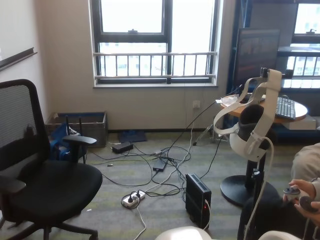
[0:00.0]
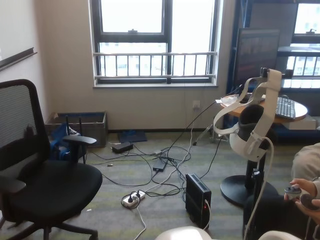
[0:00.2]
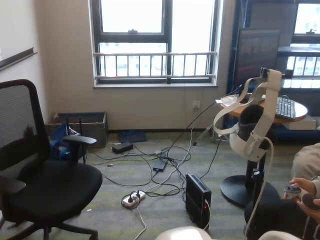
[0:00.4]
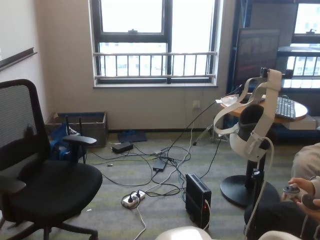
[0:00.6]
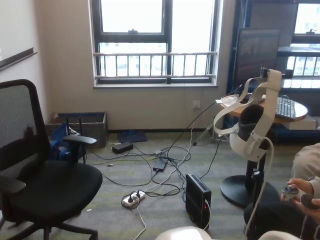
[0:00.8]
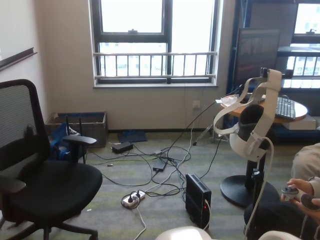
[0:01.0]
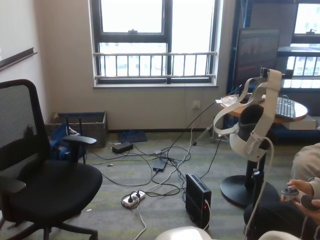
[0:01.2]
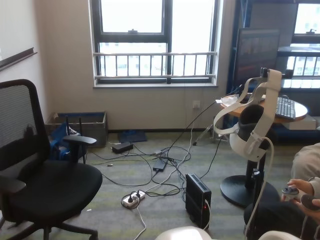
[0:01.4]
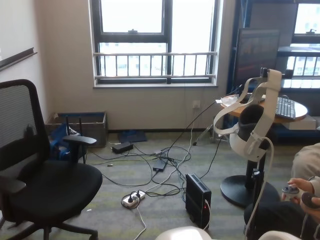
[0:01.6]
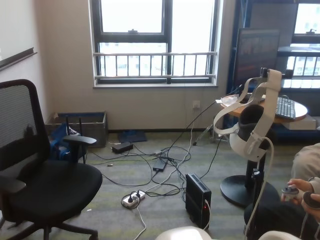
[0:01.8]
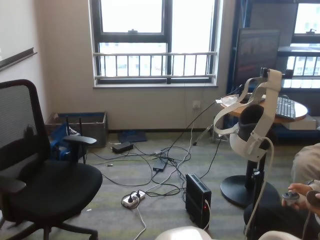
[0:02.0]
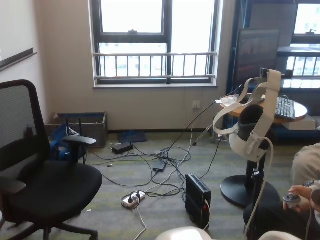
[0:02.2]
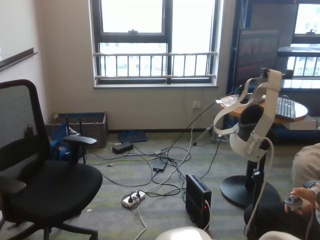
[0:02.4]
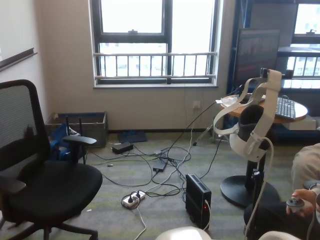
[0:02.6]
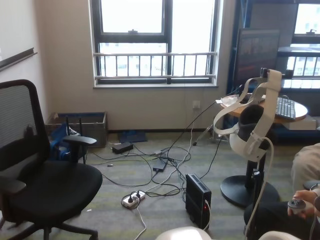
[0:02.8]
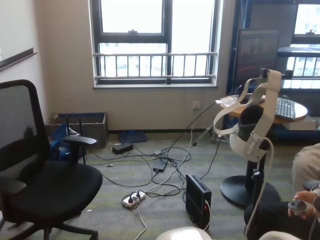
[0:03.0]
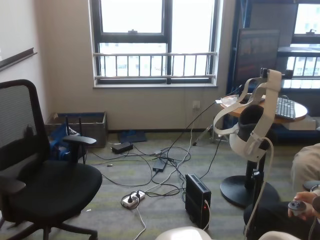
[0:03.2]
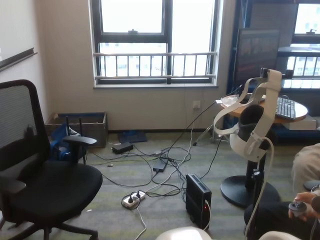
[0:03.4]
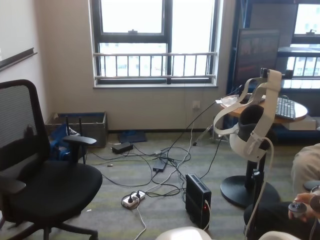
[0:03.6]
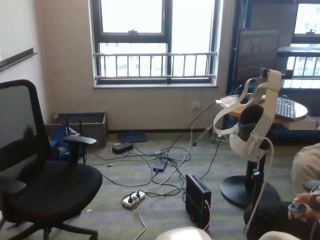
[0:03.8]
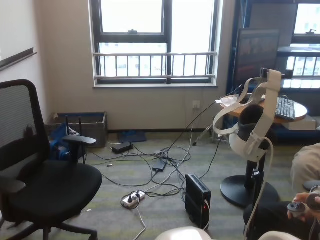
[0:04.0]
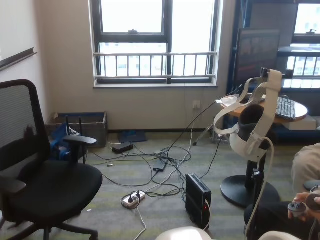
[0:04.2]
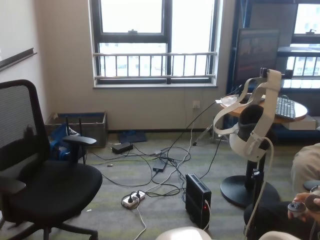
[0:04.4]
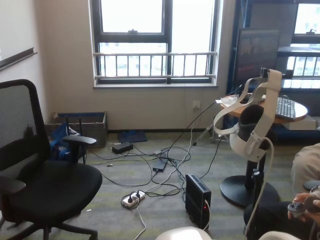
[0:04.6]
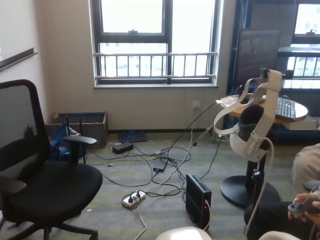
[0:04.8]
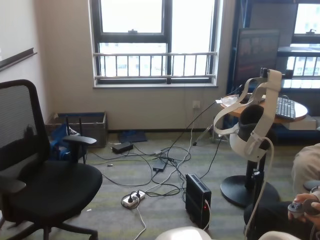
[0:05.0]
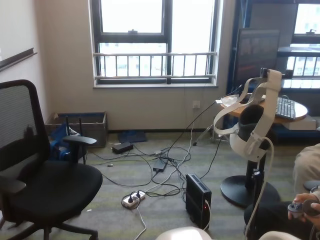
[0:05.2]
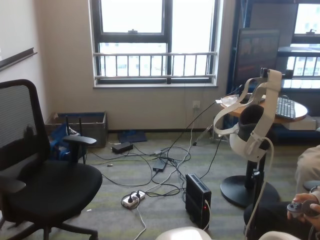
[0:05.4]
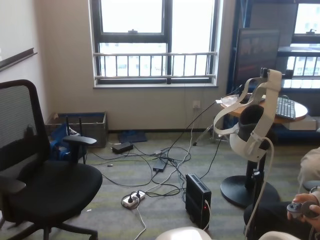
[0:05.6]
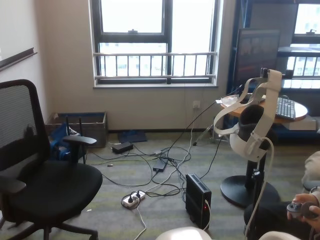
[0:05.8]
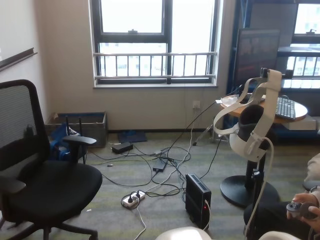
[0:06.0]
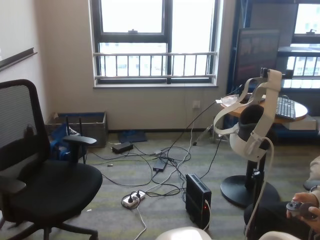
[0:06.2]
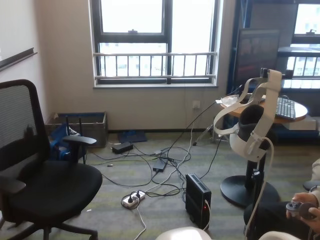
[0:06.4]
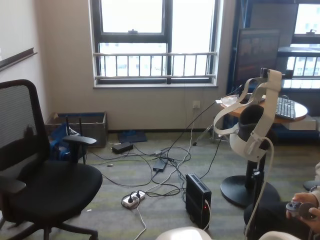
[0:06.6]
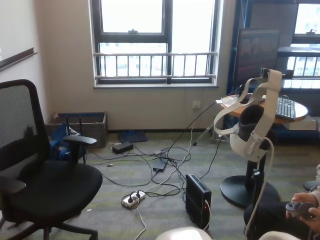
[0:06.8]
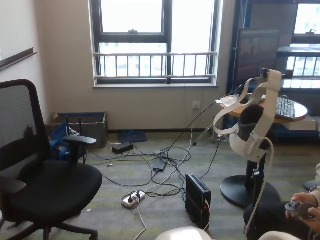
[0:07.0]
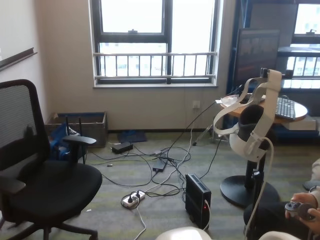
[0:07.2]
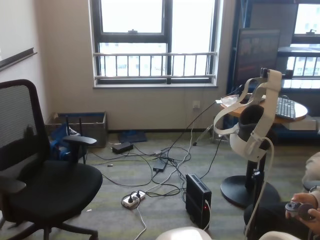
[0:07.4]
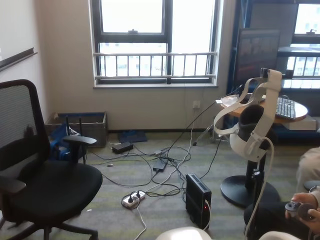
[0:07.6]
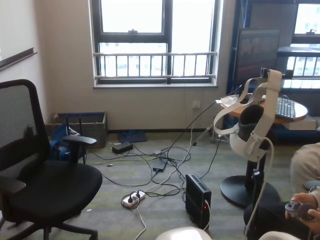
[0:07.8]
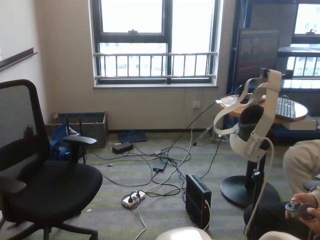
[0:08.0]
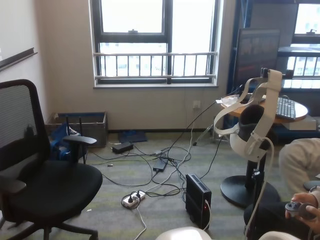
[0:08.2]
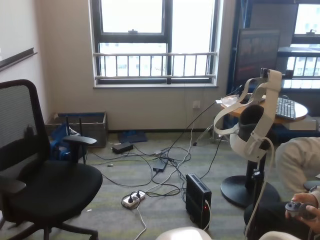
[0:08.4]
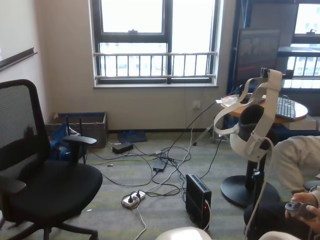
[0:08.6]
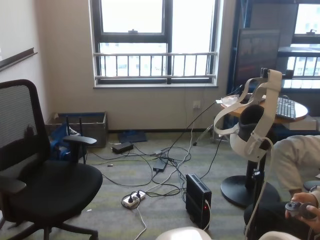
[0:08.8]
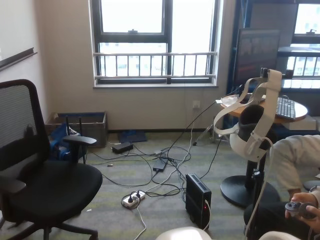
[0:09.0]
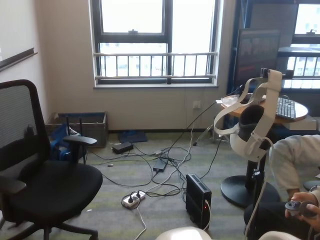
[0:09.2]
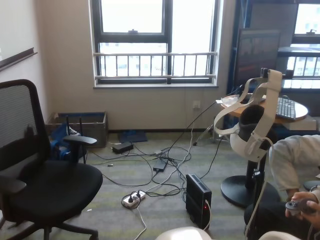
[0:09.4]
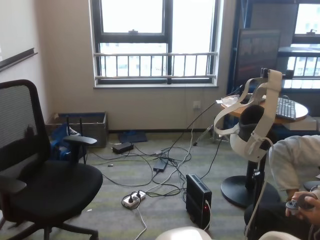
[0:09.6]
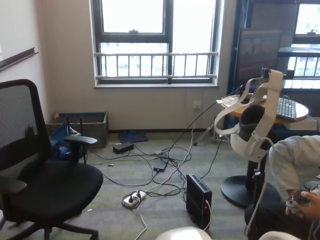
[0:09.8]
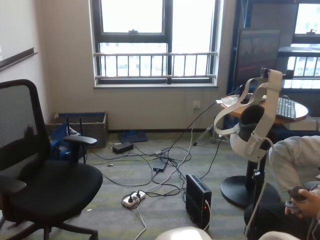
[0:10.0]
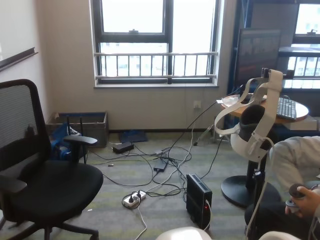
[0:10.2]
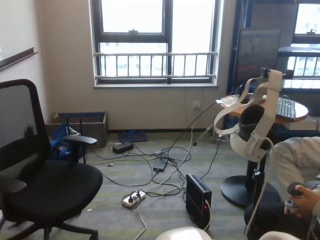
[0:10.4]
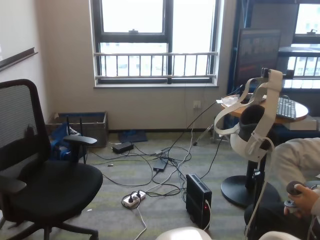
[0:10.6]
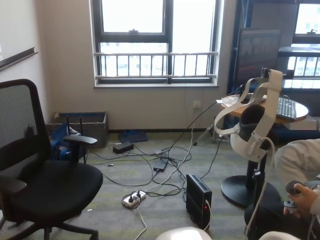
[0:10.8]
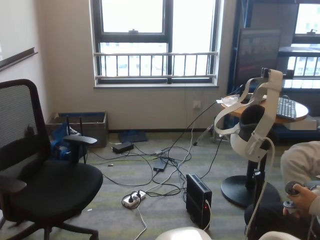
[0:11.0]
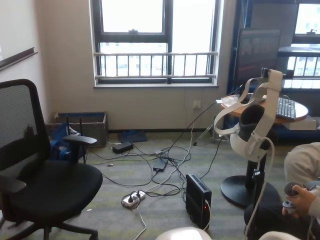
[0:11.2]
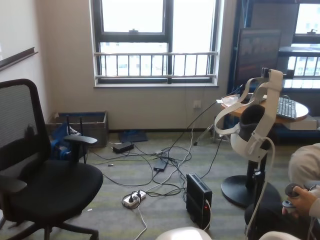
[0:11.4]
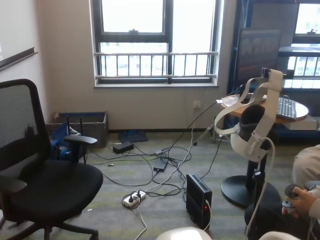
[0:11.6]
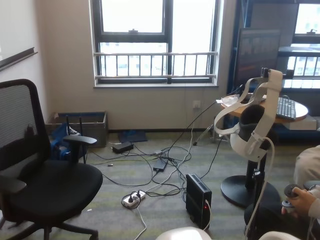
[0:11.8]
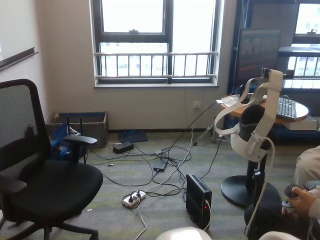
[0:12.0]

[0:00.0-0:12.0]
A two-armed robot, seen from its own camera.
Task of the whole recording: stack building blocks on the table.
Step, 0:00.0 to 0:08.8: Grasp the pink building block with left gripper.

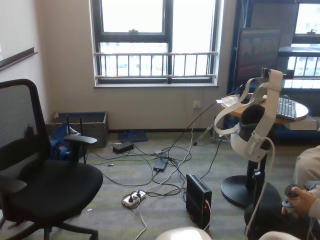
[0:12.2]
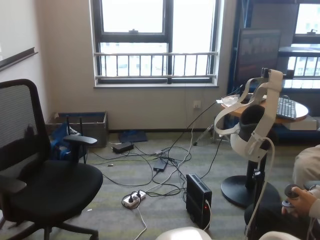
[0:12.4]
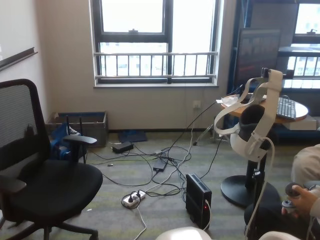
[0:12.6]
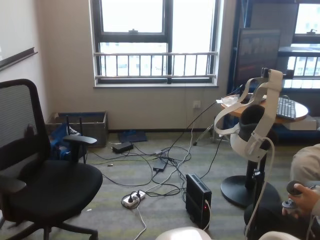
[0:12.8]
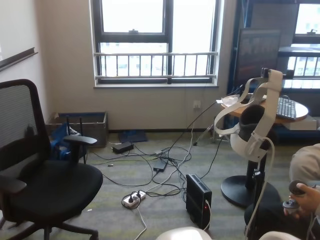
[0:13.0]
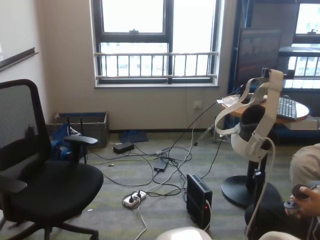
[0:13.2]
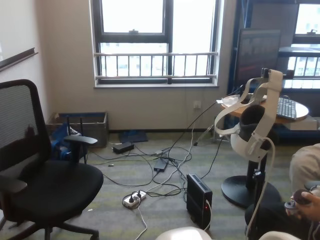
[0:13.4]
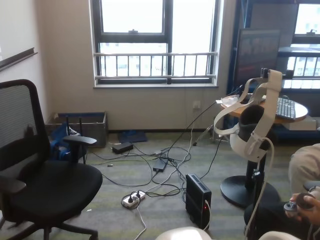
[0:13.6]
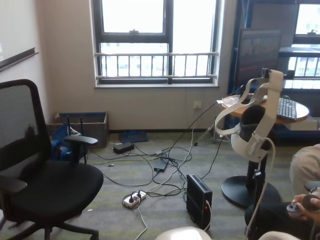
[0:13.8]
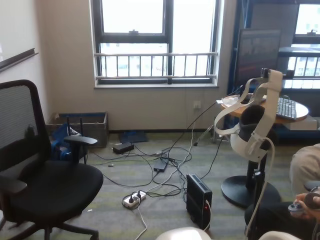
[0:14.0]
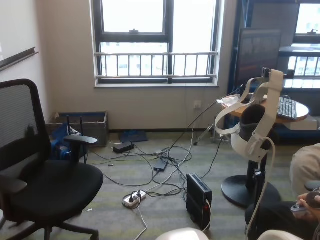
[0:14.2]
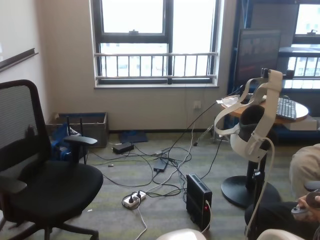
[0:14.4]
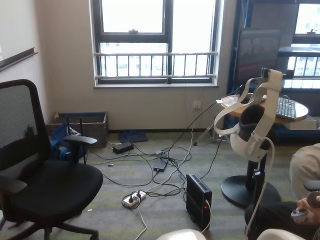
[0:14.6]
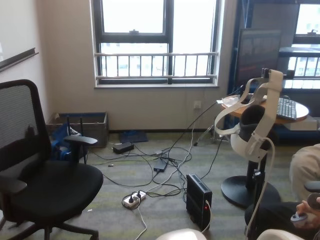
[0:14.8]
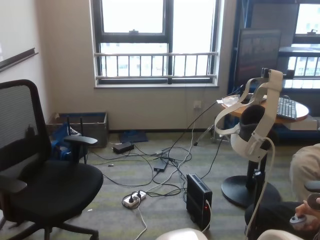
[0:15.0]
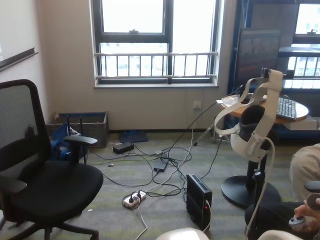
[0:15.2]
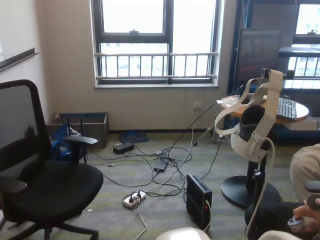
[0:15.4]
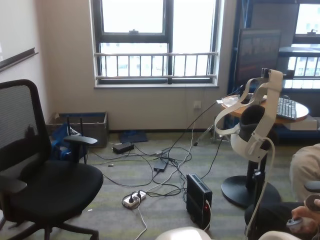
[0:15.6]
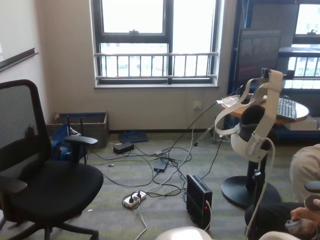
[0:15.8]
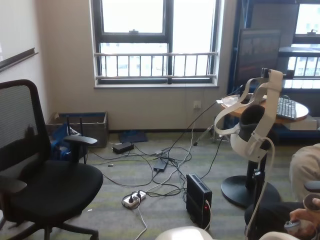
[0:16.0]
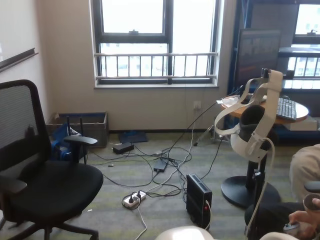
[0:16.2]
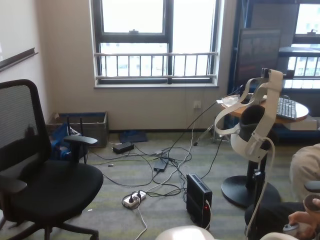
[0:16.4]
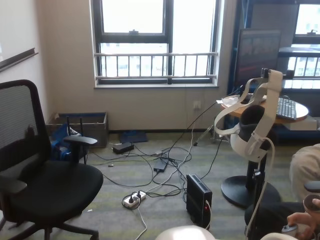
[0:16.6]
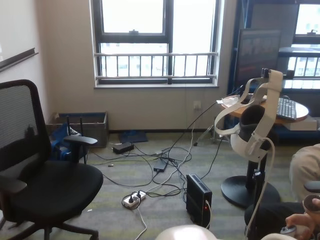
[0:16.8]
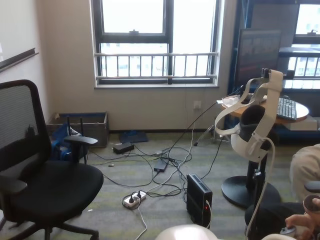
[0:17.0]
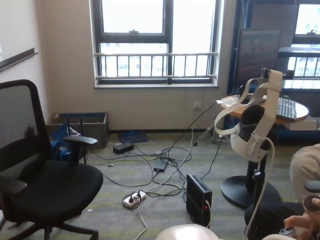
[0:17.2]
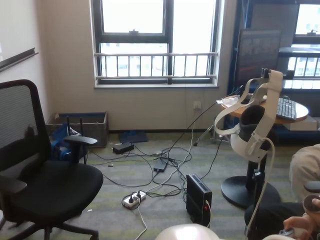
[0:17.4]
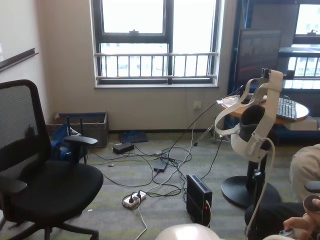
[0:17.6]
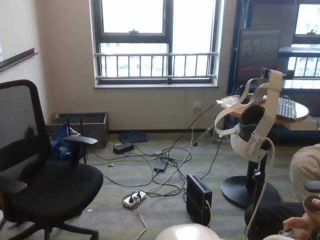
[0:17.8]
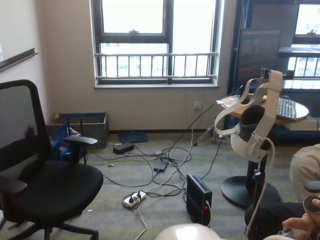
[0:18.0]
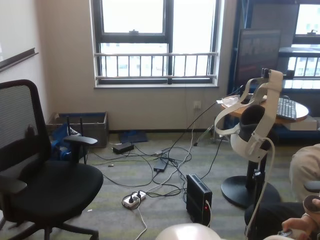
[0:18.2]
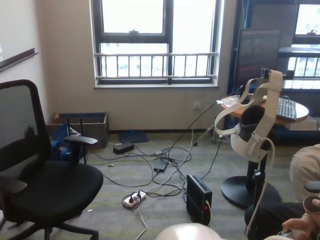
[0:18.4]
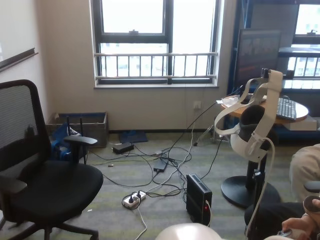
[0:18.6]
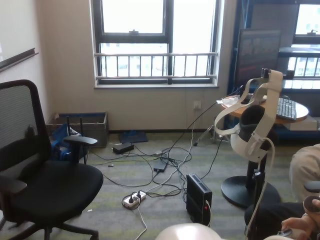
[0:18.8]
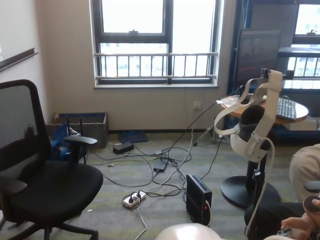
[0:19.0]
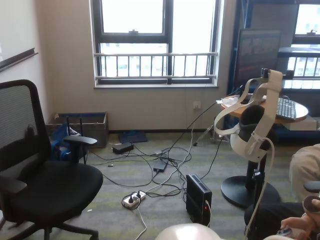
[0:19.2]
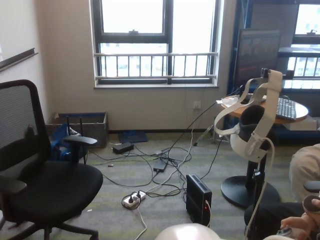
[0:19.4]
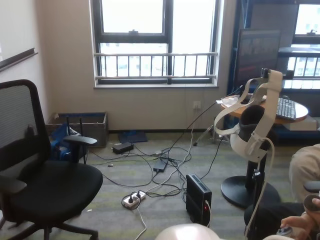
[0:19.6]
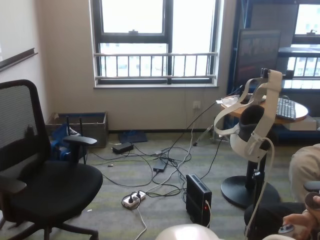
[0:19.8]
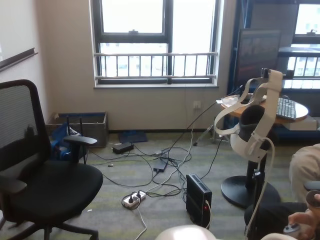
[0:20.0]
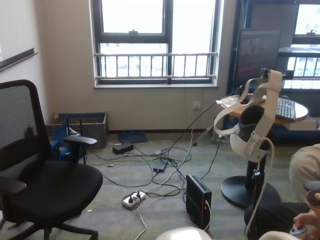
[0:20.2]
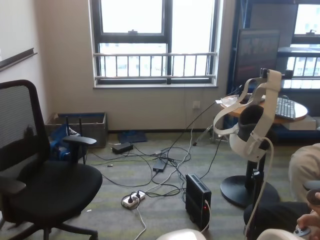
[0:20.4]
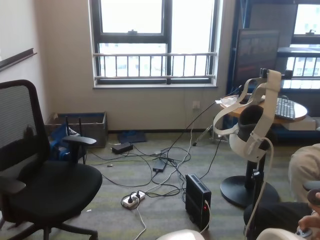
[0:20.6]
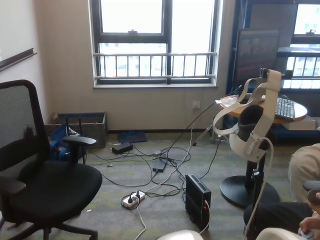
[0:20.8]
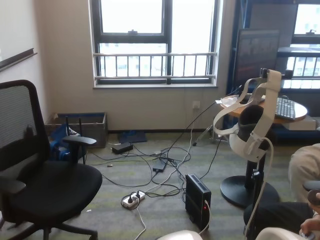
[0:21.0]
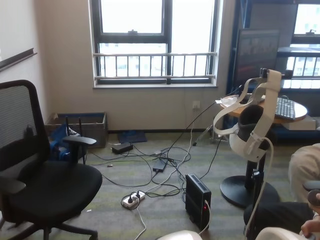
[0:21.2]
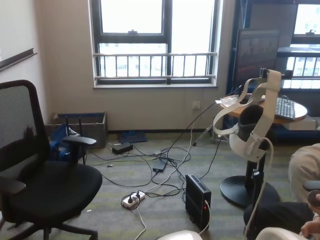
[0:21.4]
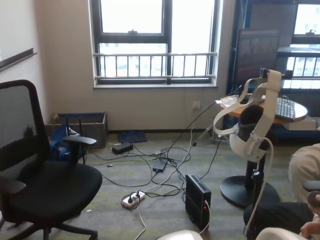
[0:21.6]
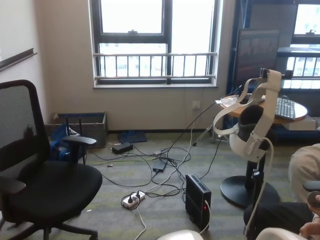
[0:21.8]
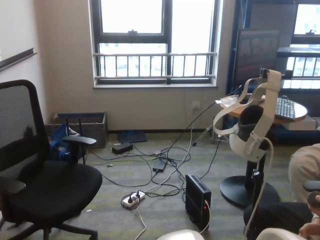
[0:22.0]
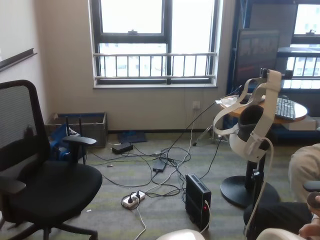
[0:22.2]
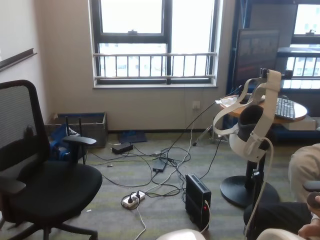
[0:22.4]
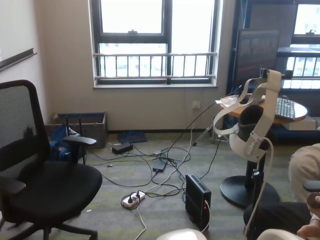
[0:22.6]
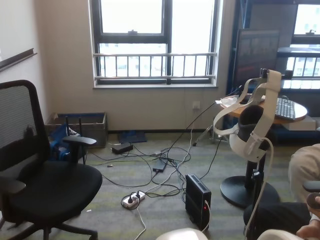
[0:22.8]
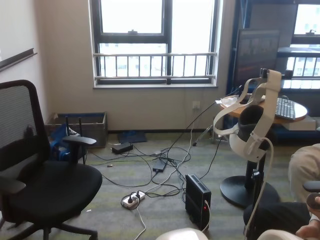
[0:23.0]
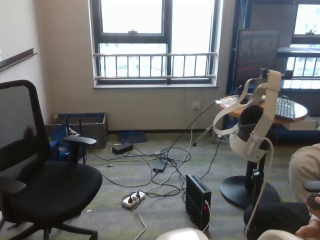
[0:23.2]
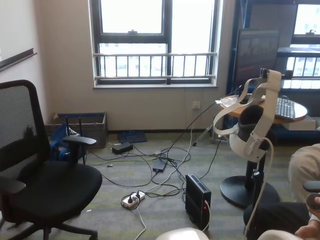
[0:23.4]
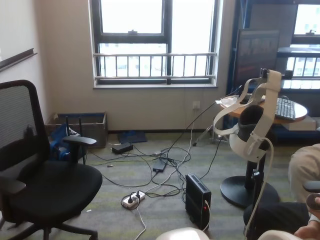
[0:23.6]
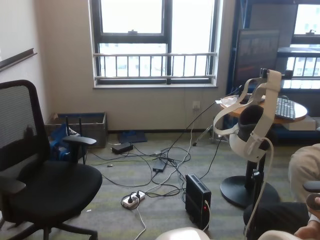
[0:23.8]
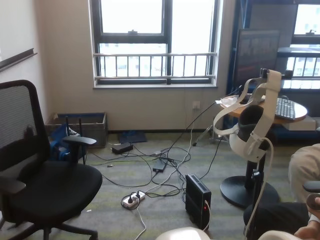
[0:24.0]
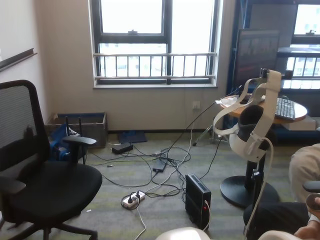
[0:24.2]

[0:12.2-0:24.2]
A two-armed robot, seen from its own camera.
Task of the whole recording: stack building blocks on the table.
Step, 0:12.6 to 0:19.4: Grasp the blue building block with right gripper.
